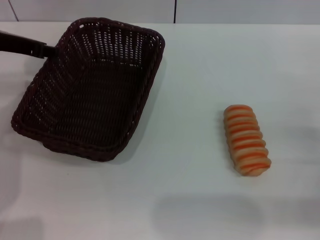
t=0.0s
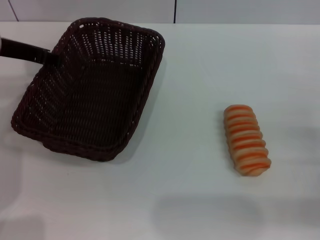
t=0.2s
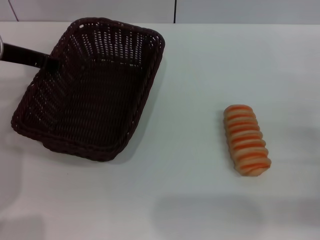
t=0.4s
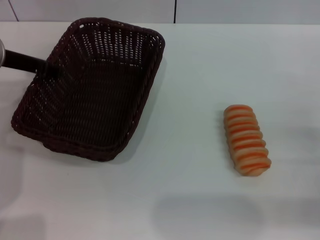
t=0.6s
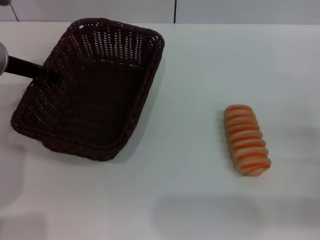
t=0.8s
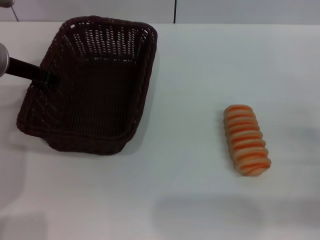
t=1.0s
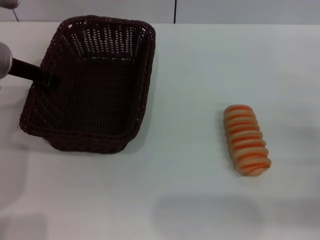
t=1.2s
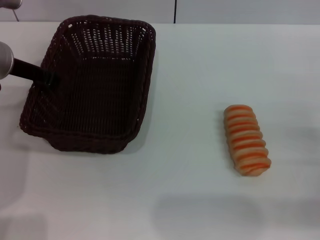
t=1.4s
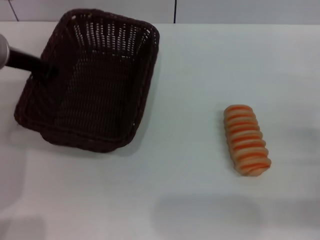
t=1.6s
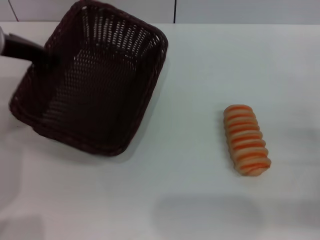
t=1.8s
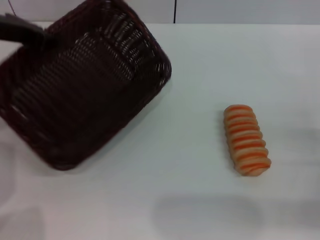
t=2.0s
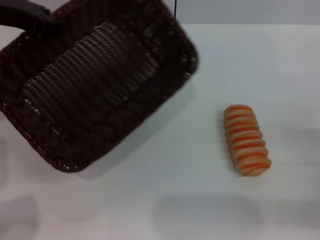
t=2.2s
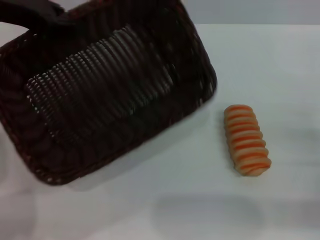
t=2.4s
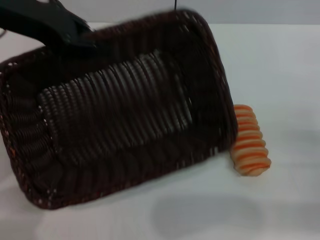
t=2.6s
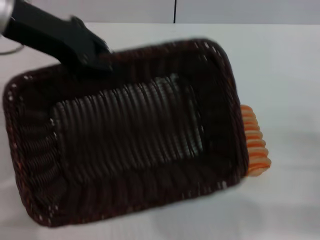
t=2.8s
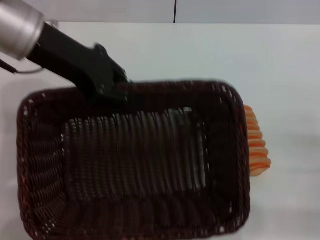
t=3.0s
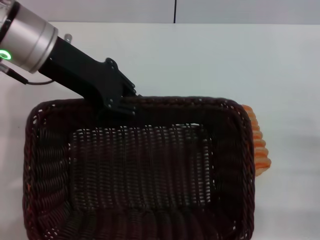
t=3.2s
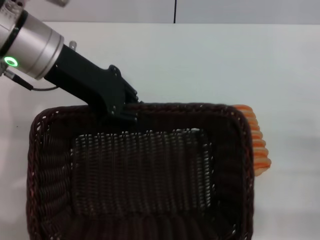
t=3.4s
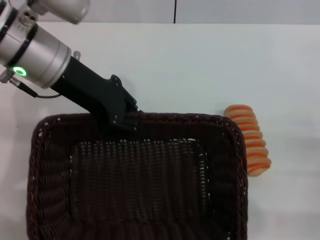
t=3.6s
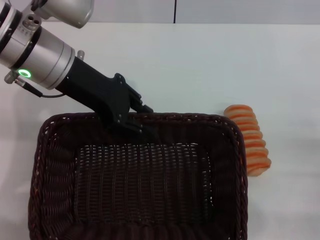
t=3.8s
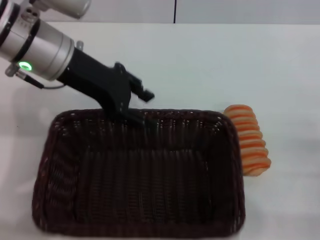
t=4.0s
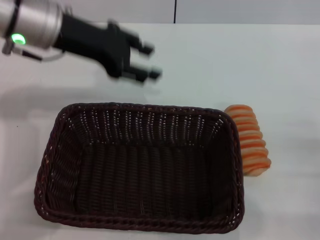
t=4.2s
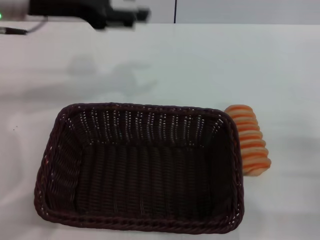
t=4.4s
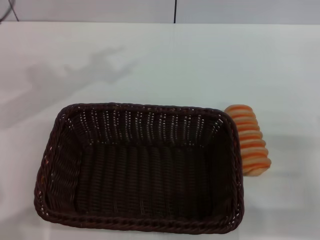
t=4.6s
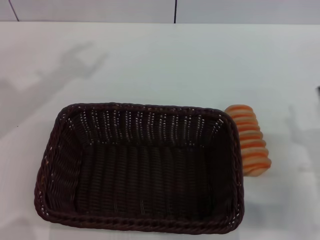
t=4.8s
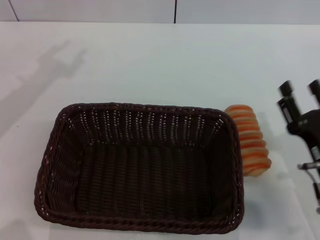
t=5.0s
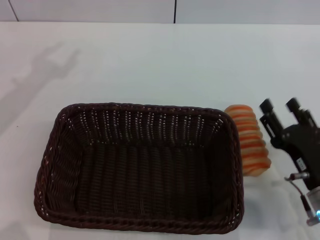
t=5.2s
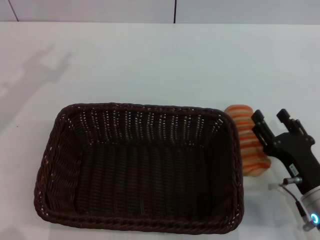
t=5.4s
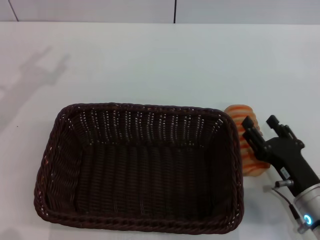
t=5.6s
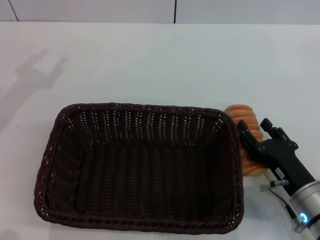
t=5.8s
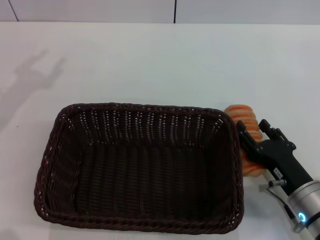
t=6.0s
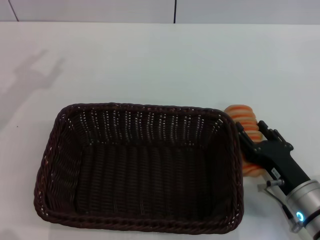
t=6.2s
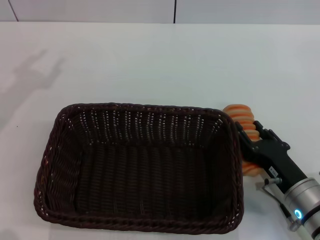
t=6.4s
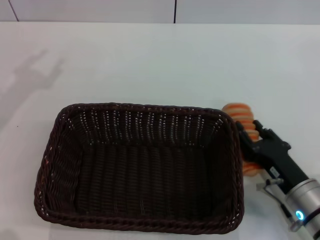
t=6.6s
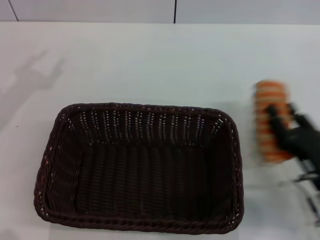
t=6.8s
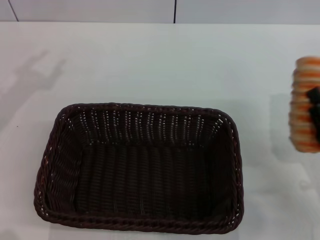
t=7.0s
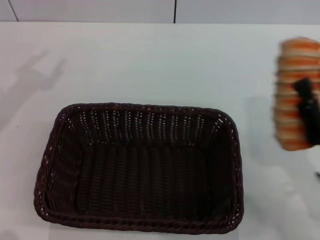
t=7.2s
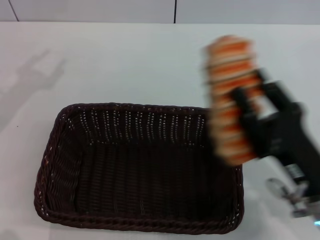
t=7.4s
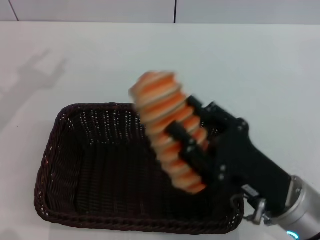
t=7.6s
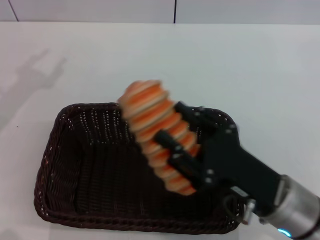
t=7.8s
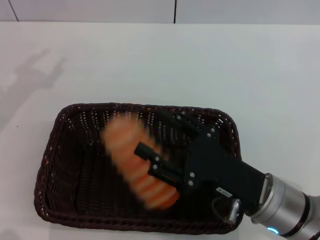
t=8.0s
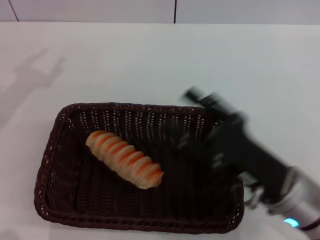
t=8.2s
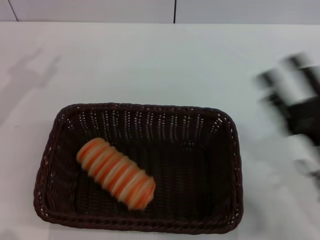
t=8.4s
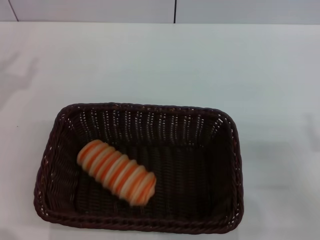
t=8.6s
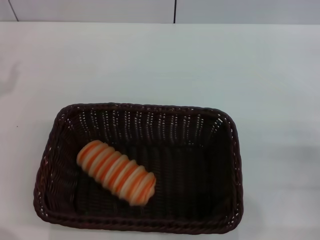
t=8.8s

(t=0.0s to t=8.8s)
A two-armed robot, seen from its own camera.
Step, t=1.6s - t=4.2s: Place the basket in the center of the table with the left gripper.
Step, t=4.4s - t=6.4s: Grasp the long bread with right gripper.
Step, t=6.8s - t=8.2s: Place the long bread in the basket with right gripper.
t=0.0s - t=1.4s: The left gripper closes.
t=1.4s - t=3.0s: The left gripper heads upward and to the right, covering about 10 cm.
t=3.0s - t=4.4s: The left gripper opens.
t=4.4s - t=5.8s: The left gripper moves to the left, downward and backward, approximately 15 cm. Meanwhile the right gripper goes approximately 10 cm to the left and downward.
t=5.8s - t=7.4s: The right gripper shifts some 5 cm upward, and closes its fingers.
t=7.4s - t=8.8s: The right gripper shifts roughly 15 cm to the right, and opens up, while the left gripper goes some 5 cm downward.

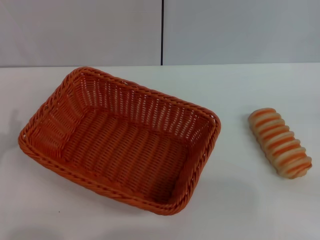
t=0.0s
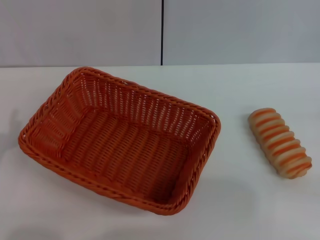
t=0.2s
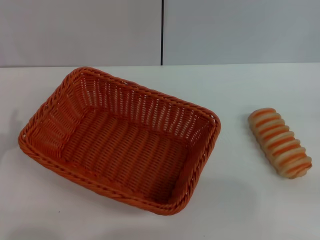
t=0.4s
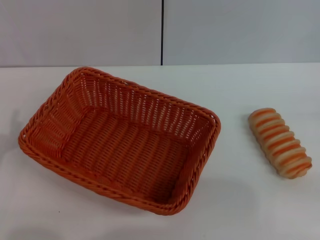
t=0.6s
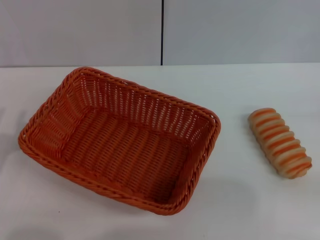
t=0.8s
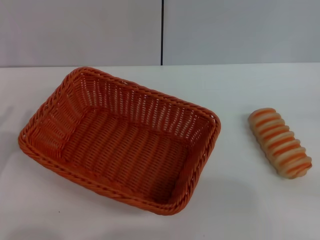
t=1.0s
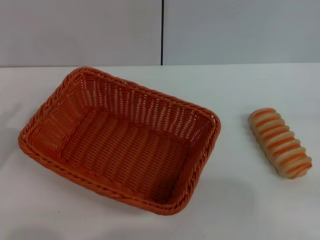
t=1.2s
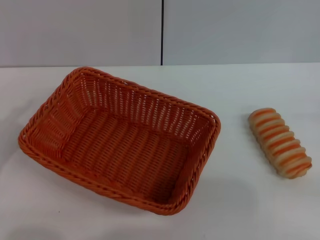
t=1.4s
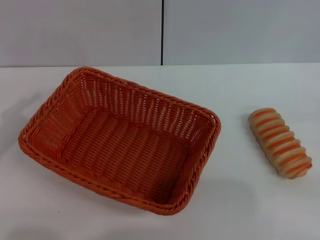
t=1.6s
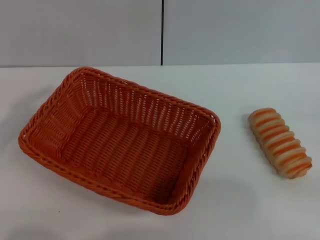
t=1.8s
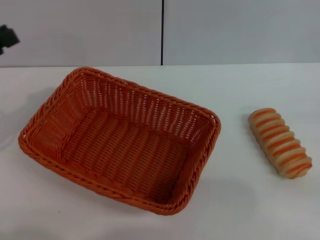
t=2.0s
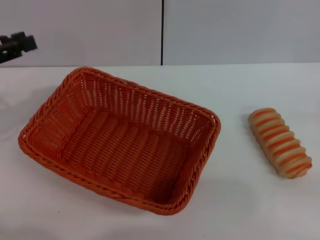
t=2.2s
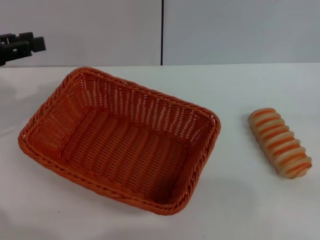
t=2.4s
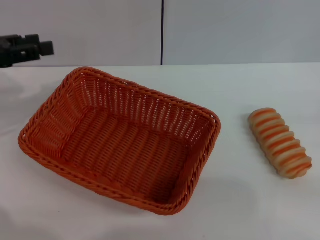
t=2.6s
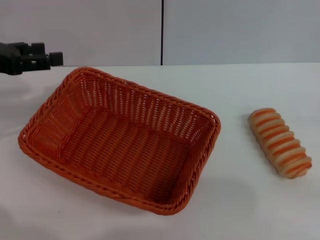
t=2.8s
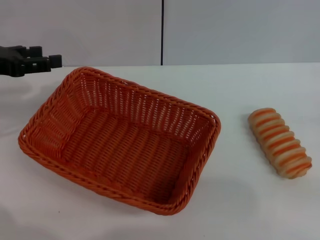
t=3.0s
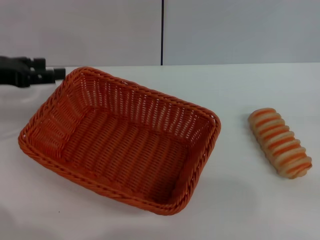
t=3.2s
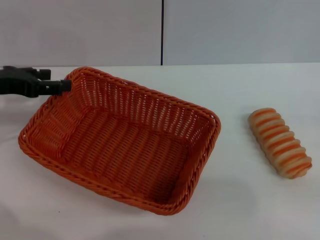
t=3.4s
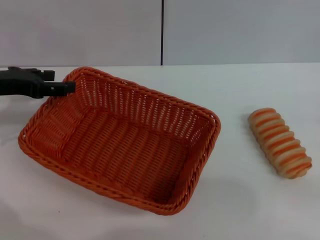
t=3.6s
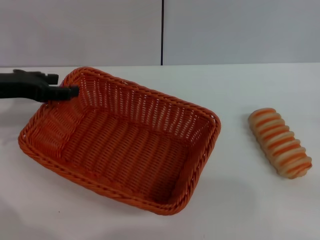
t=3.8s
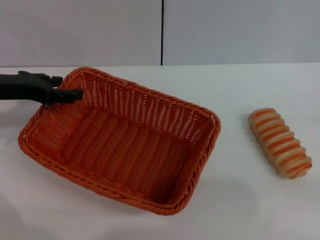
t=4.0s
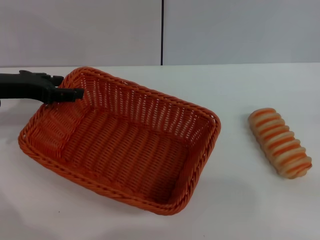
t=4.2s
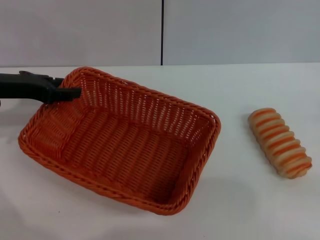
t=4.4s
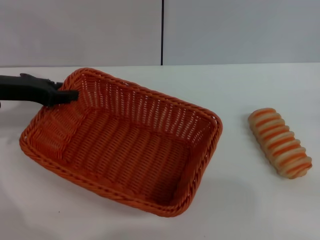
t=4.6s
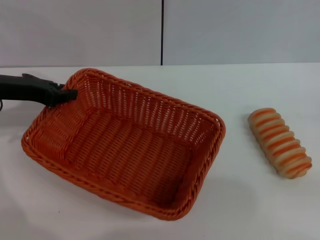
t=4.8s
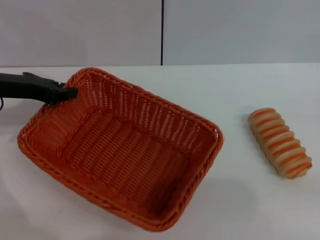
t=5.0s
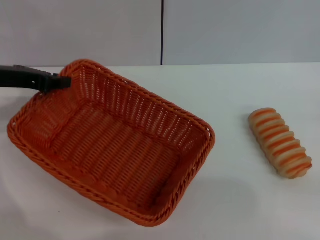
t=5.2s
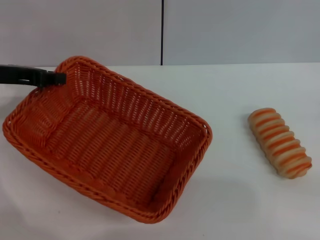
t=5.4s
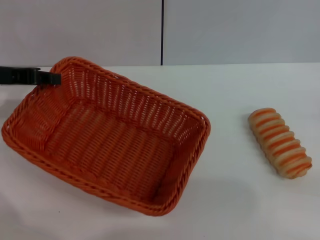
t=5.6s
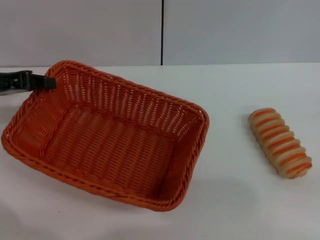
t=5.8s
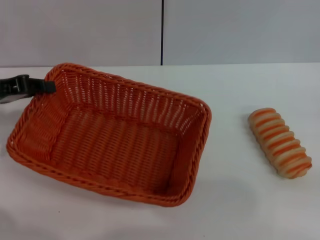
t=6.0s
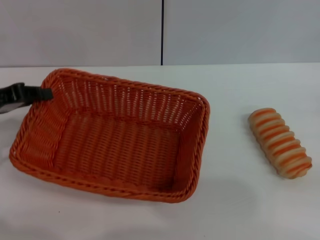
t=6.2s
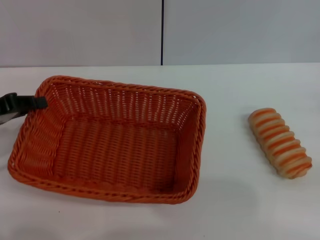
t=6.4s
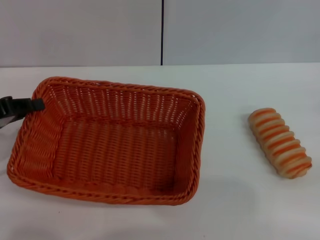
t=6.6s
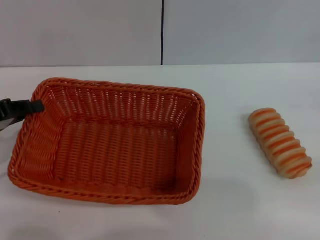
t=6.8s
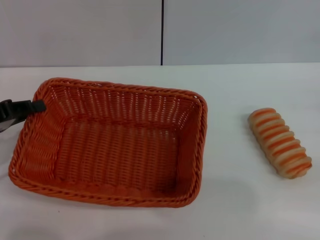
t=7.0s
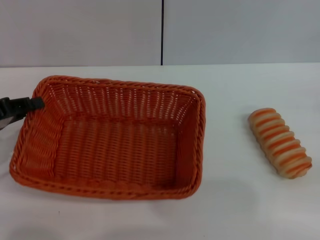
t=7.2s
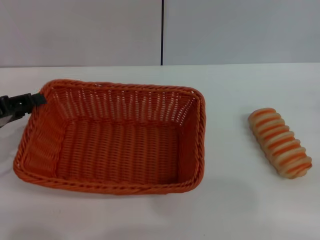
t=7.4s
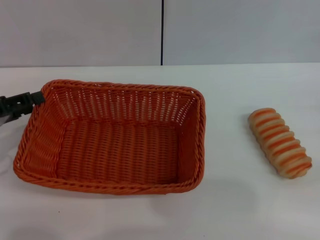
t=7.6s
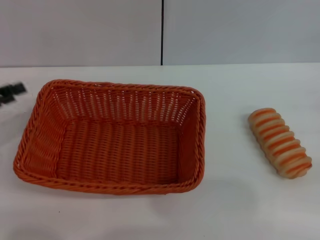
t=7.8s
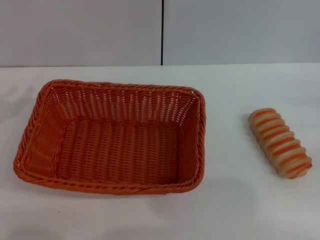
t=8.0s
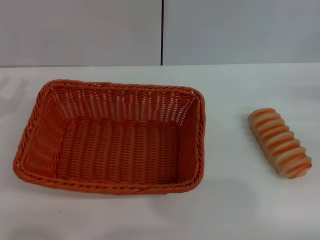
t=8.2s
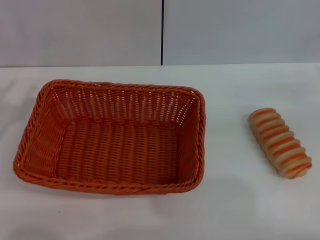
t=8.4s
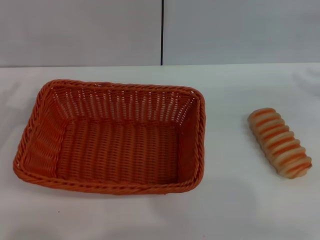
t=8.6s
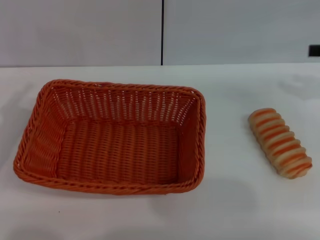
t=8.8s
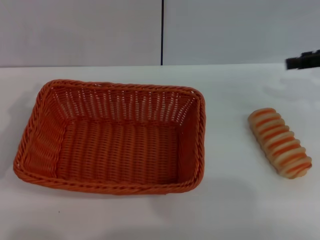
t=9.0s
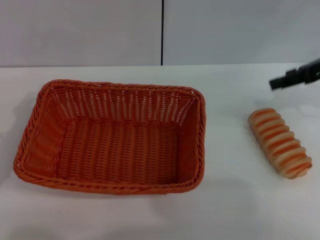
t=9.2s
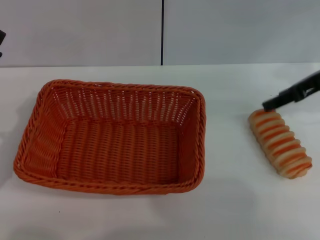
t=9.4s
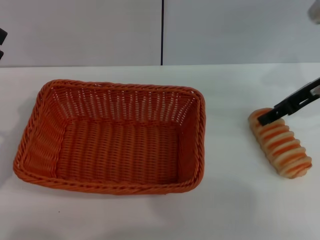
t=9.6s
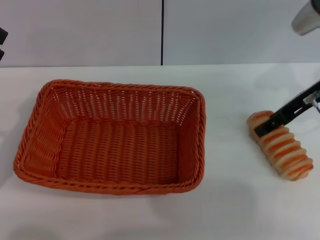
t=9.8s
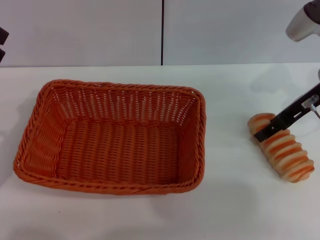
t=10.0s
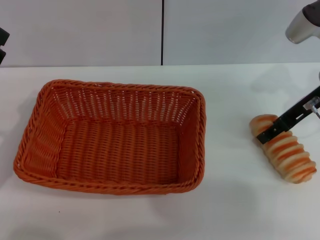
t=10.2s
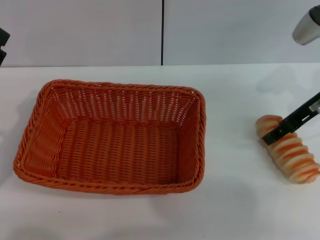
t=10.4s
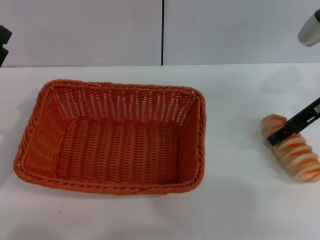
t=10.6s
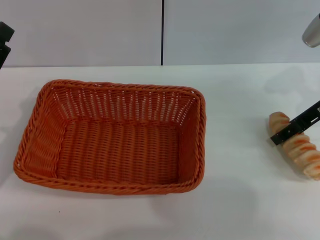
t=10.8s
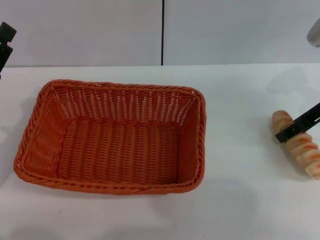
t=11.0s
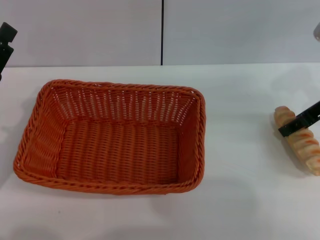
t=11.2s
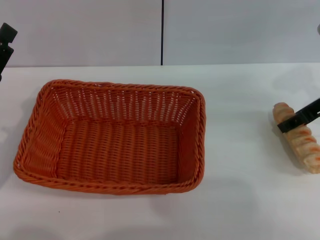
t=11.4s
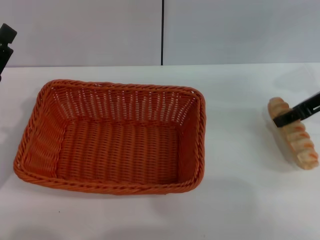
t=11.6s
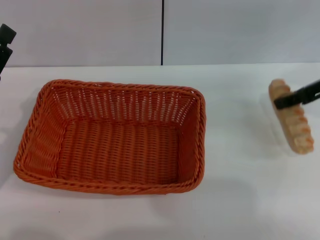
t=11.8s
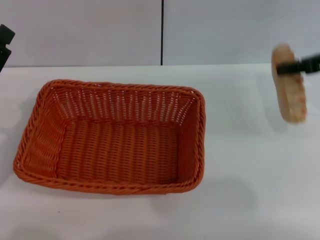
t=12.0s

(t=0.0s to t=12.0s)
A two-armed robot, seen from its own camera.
Step, t=5.8s - t=7.6s: Place the light basket in the center of view with the right gripper.
Step, t=7.8s - t=11.8s: Pick up the long bread with the left gripper.
t=1.6s - t=3.0s: The left gripper is displaced forward and upward by approximately 15 cm, and opens its fingers.
t=3.0s - t=4.4s: The left gripper moves roughly 5 cm.
t=4.4s - t=6.0s: The left gripper closes.
t=6.0s - t=7.6s: The left gripper heads backward, covering approximately 5 cm, and opens its fingers.
t=7.6s - t=9.0s: The right gripper is displaced upward, forward and to the left by roughly 20 cm; the left gripper shifts by roughly 5 cm.
t=9.0s - t=10.4s: The right gripper goes roughly 10 cm to the left.
t=10.4s - t=12.0s: The right gripper ends up some 5 cm from where it was, and closes up.

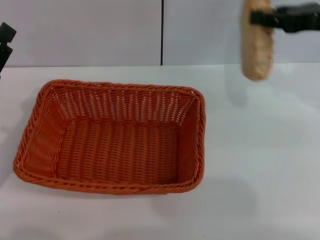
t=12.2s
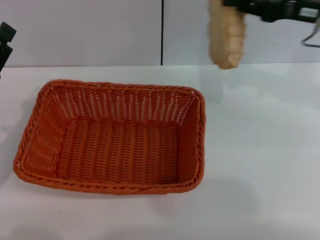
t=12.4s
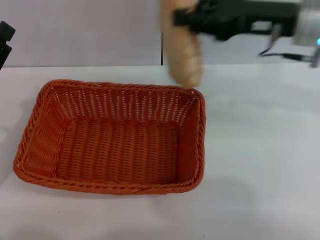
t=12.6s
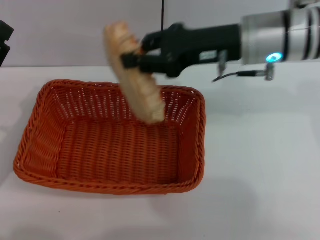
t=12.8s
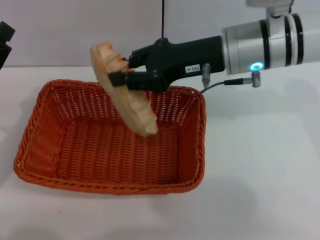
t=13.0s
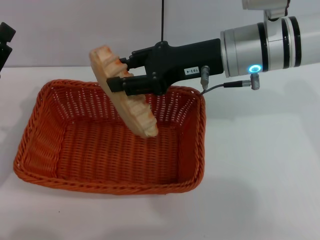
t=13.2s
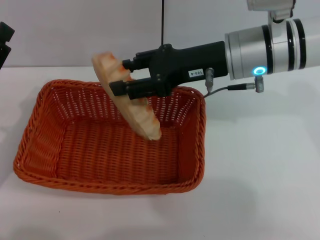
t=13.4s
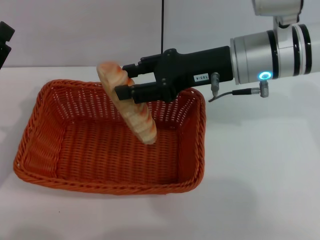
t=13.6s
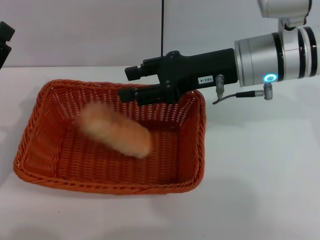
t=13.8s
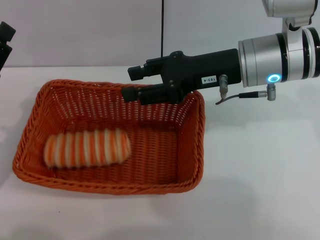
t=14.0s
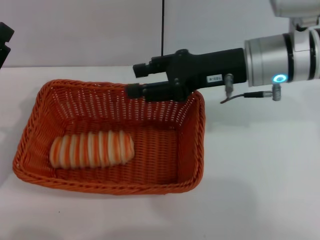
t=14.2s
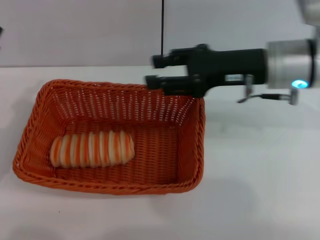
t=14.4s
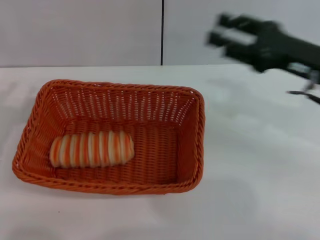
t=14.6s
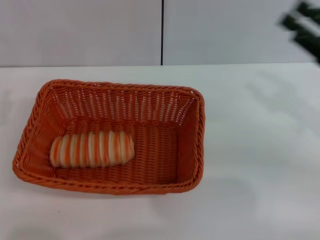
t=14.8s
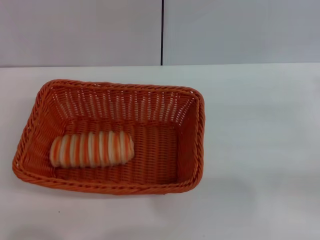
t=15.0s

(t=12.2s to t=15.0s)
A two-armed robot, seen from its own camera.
t=12.2s - t=13.6s: The right gripper travels to the left by approximately 15 cm, and opens up.
t=13.6s - t=15.0s: The right gripper is displaced to the right and backward by some 25 cm; the left gripper moves some 5 cm.
